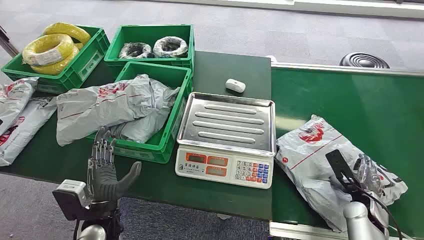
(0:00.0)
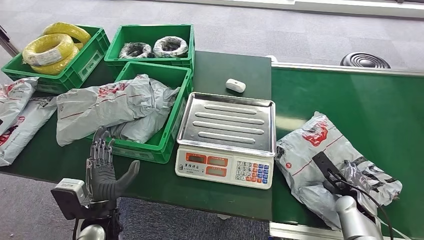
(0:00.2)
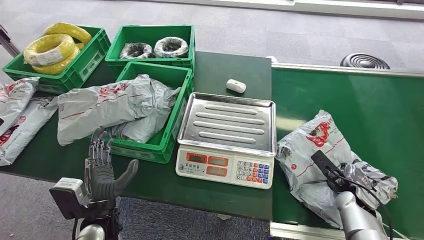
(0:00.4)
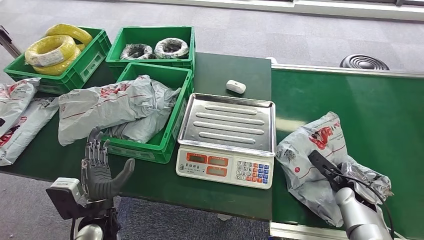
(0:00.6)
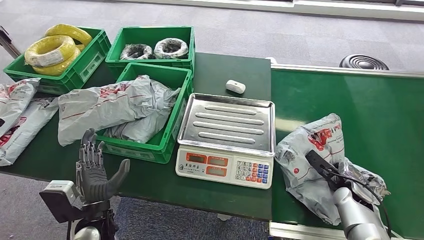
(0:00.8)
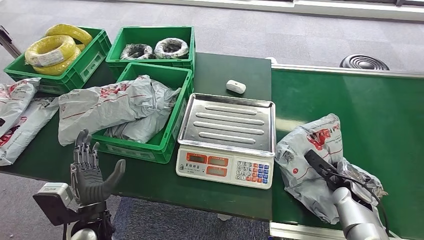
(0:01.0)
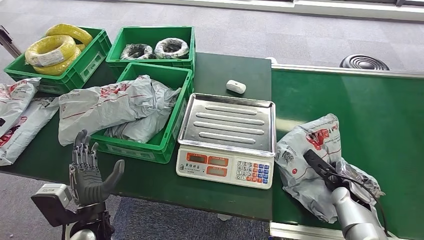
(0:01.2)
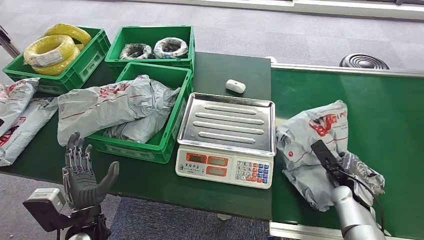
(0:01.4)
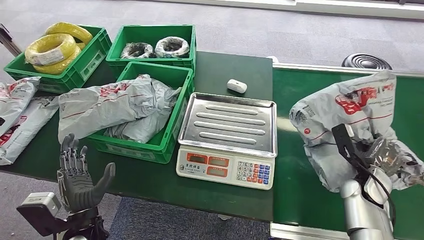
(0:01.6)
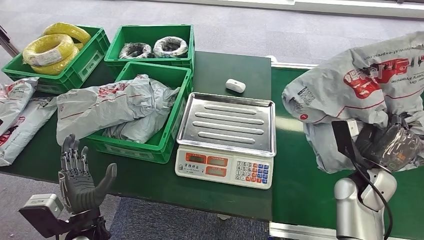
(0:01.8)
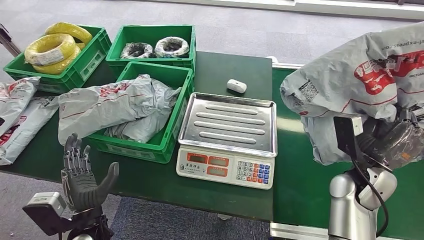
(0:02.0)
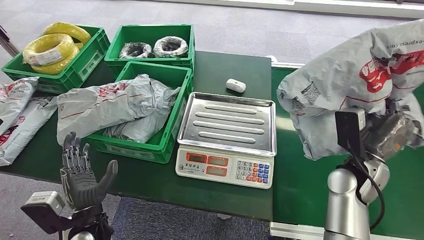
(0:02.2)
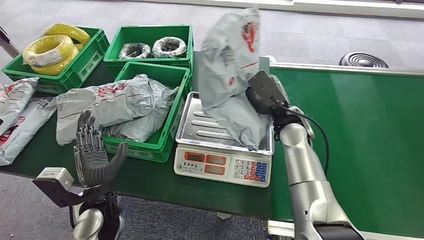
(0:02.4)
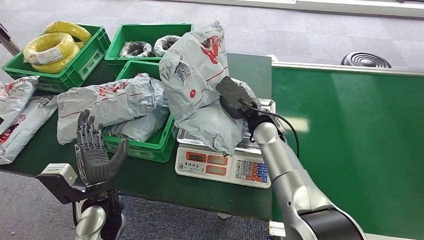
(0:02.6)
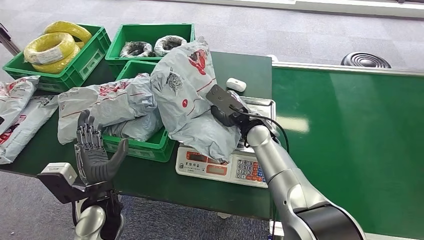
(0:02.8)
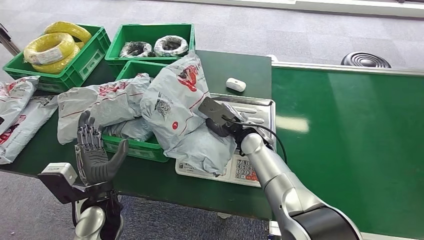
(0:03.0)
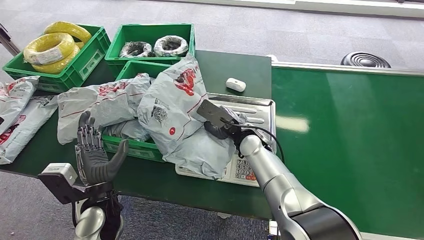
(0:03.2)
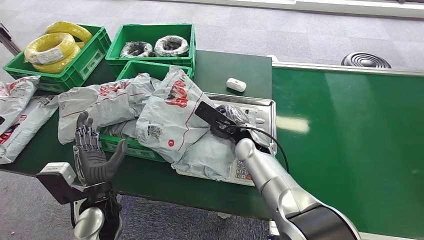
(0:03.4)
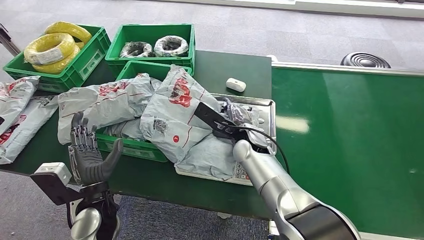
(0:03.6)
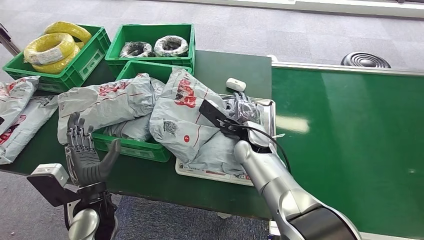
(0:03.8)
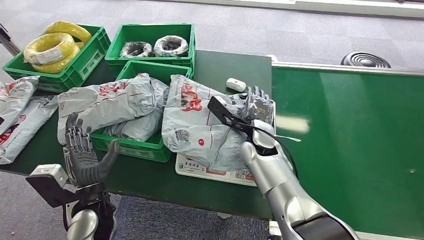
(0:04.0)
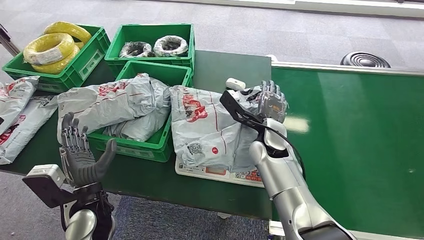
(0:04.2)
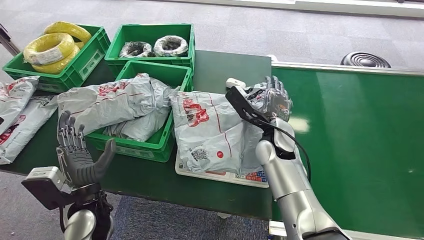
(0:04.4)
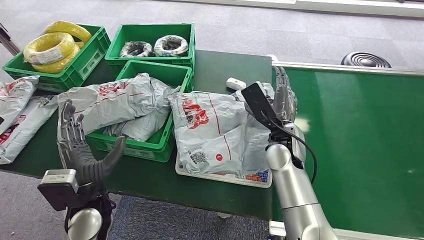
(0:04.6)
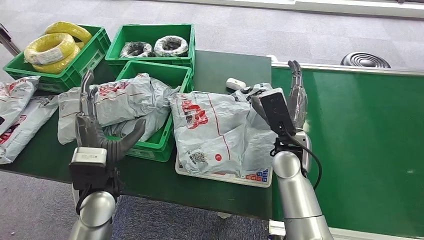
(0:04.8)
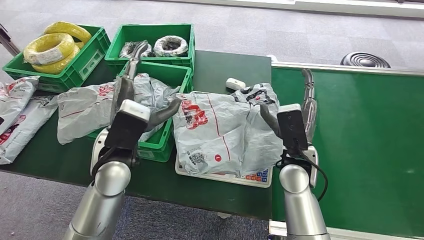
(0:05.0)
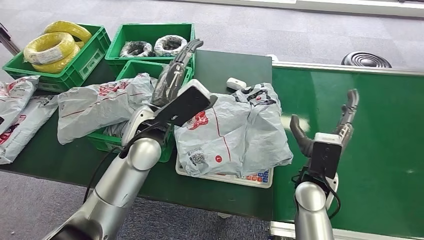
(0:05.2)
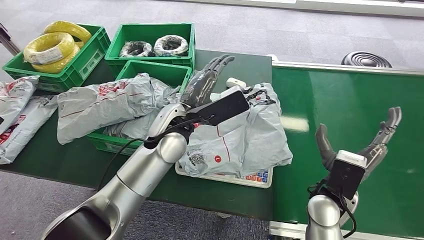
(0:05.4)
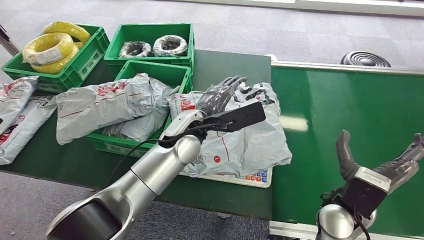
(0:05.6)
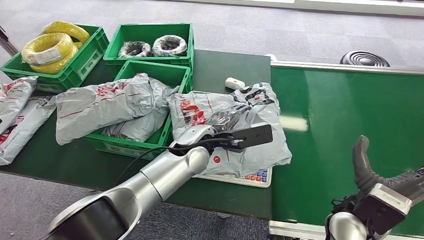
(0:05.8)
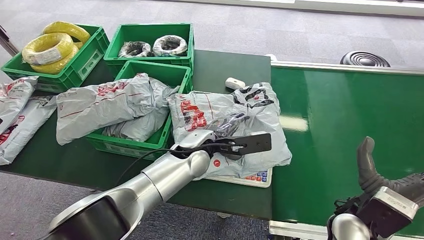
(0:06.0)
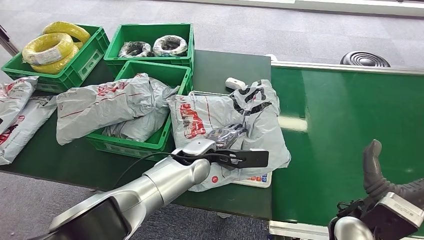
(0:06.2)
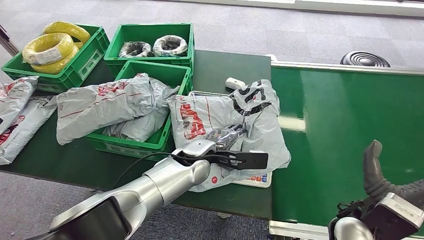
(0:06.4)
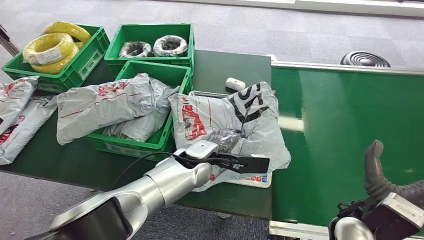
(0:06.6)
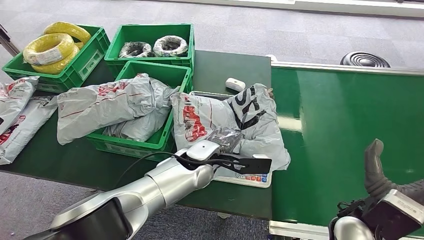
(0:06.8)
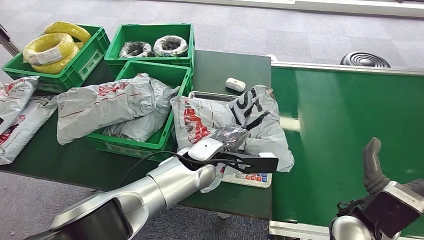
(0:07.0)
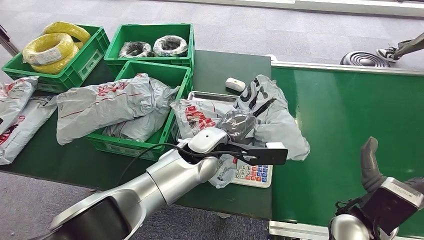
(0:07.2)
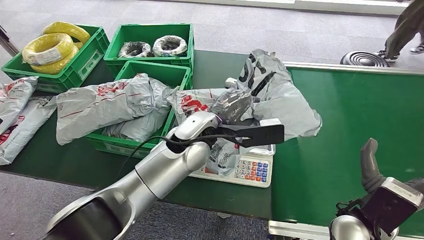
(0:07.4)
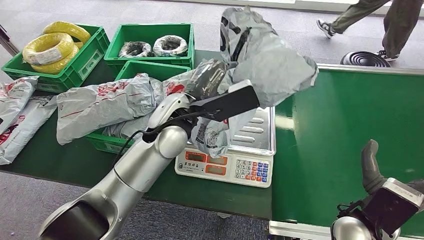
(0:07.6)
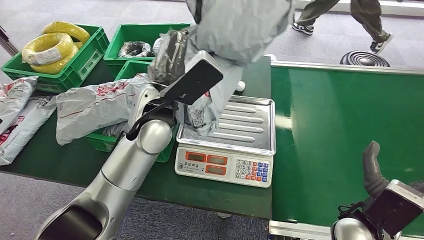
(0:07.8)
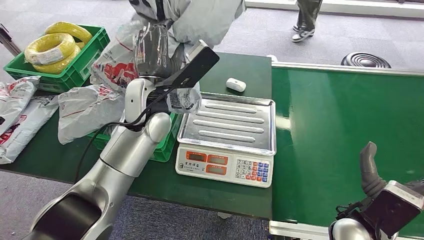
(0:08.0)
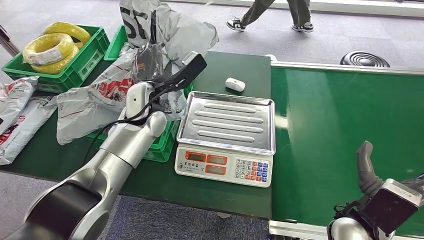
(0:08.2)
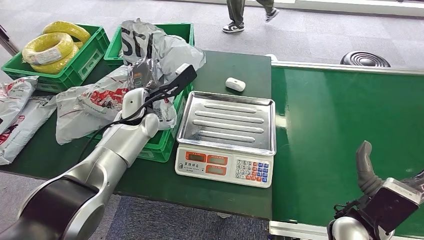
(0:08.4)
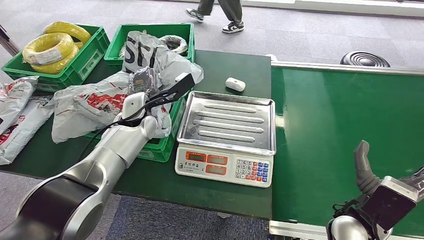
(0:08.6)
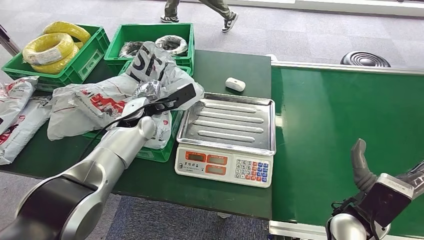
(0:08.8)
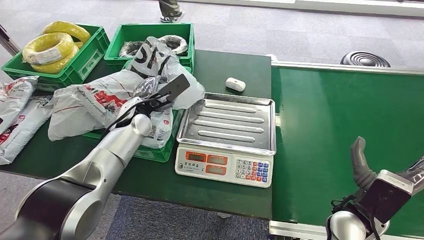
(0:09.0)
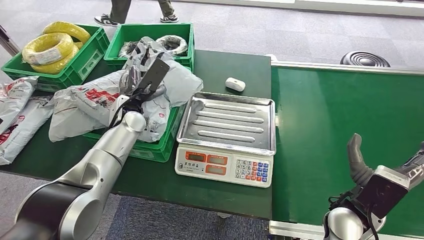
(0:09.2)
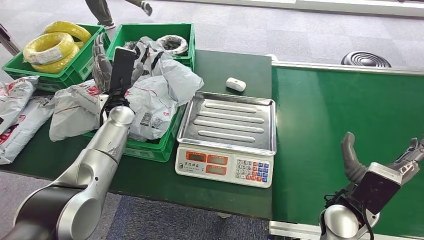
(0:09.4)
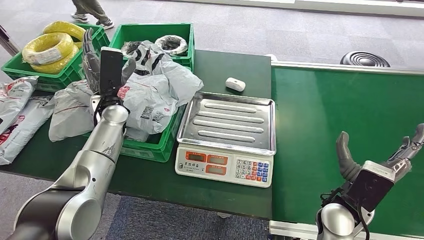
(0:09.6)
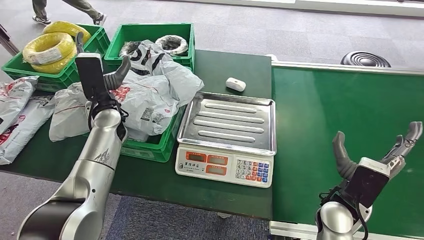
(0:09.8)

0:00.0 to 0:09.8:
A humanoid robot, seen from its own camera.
Task of the whole recording: Weigh the package on the weighing device and place it in the left basket.
Step, 0:00.0 to 0:01.8: Pick up the package from the conveyor belt.
Step, 0:02.2 to 0:05.0: Place the package onto the inbound machine.
Step, 0:05.2 to 0:07.6: Pick up the package from the inbound machine.
Step, 0:08.0 to 0:09.8: Place the package into the parcel locker.
